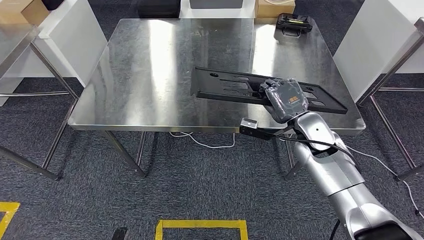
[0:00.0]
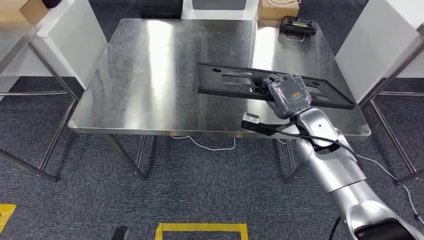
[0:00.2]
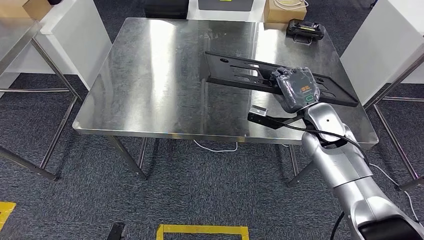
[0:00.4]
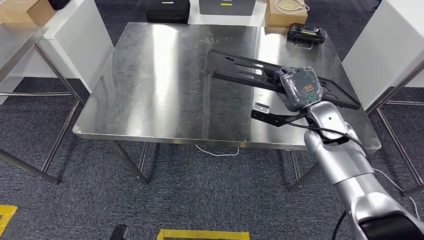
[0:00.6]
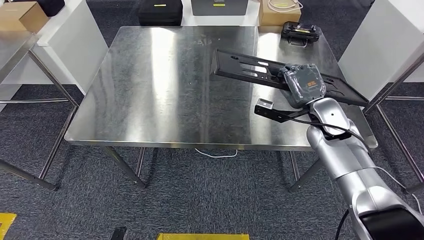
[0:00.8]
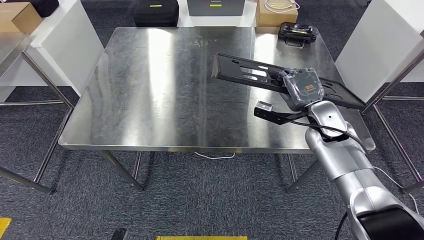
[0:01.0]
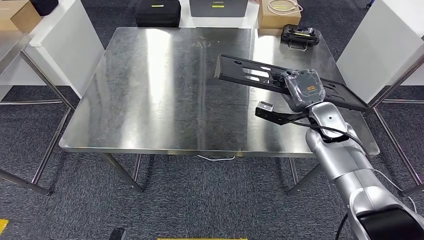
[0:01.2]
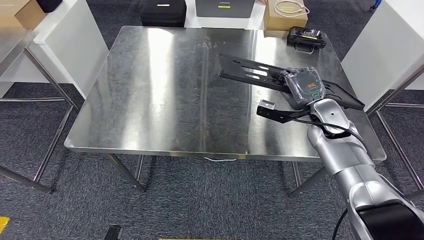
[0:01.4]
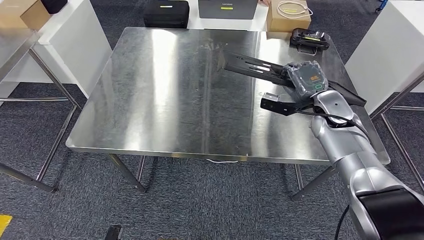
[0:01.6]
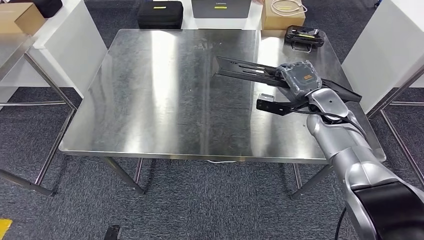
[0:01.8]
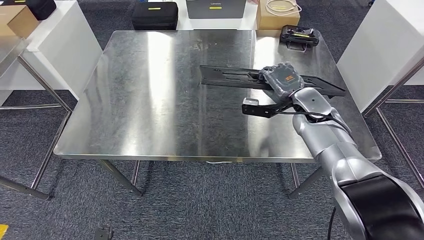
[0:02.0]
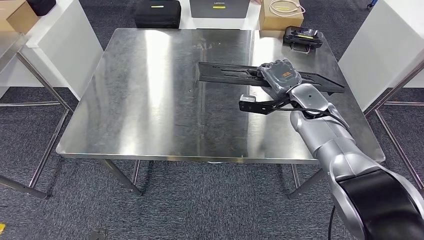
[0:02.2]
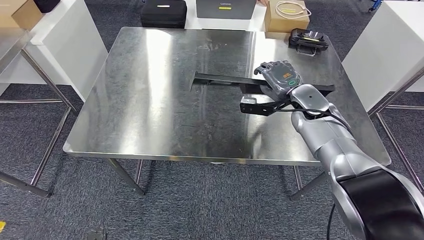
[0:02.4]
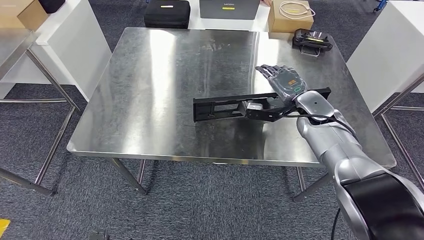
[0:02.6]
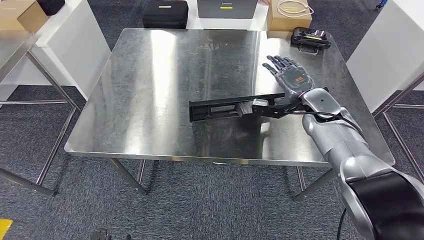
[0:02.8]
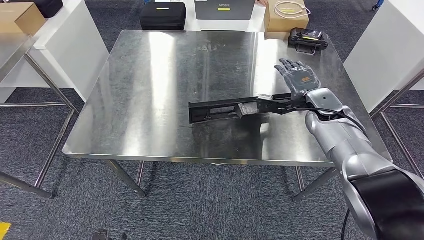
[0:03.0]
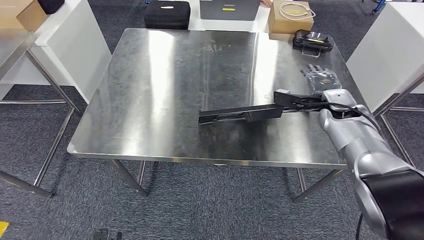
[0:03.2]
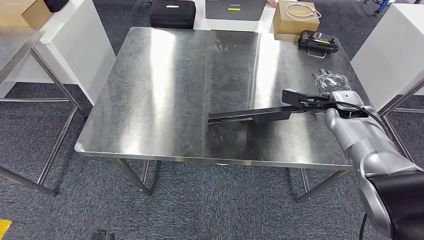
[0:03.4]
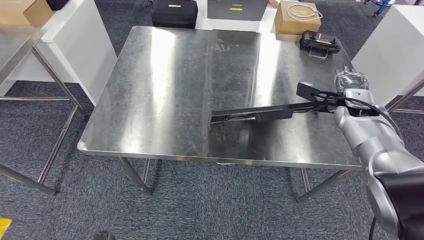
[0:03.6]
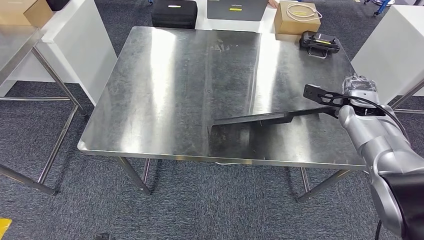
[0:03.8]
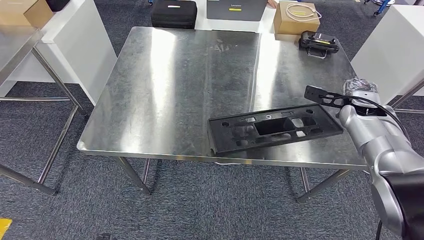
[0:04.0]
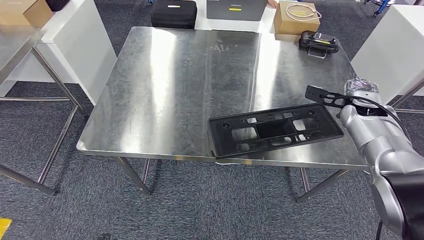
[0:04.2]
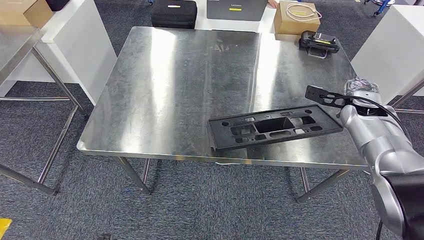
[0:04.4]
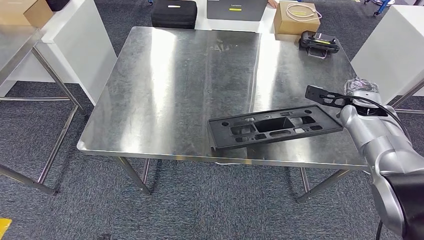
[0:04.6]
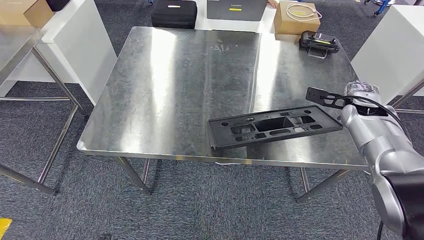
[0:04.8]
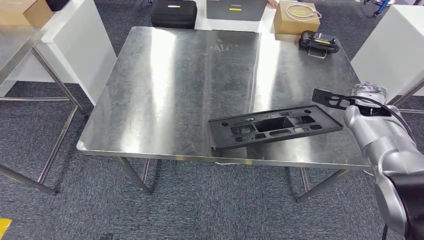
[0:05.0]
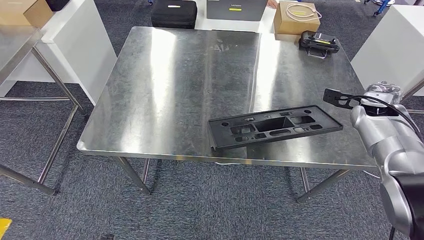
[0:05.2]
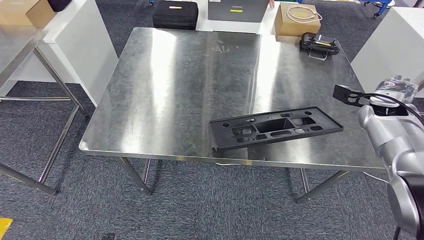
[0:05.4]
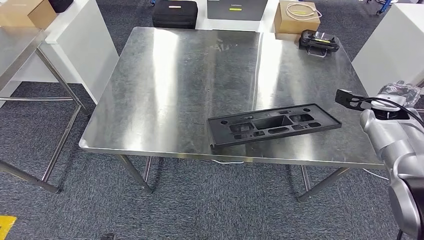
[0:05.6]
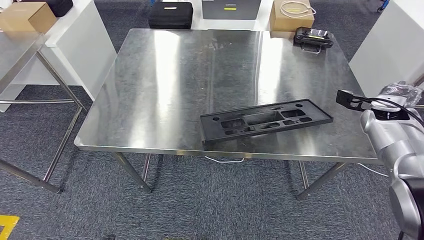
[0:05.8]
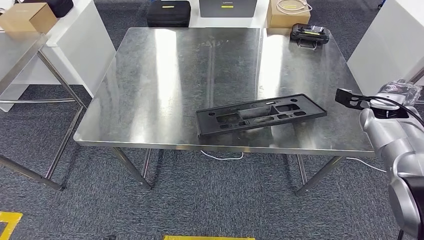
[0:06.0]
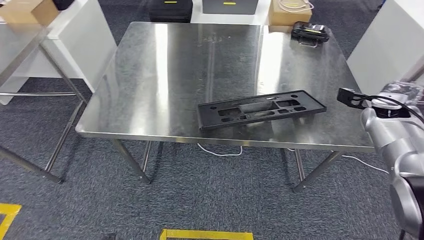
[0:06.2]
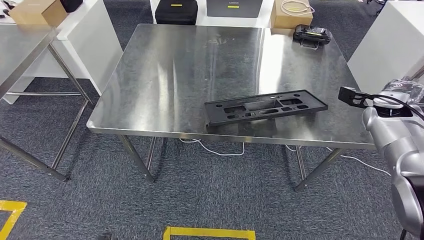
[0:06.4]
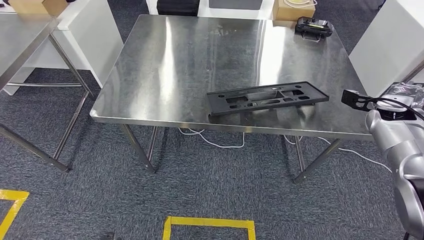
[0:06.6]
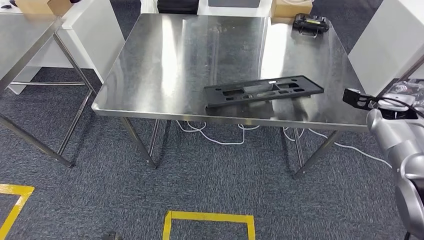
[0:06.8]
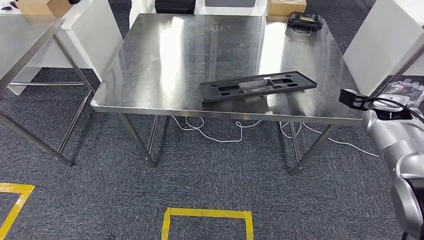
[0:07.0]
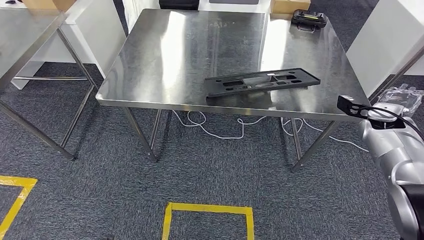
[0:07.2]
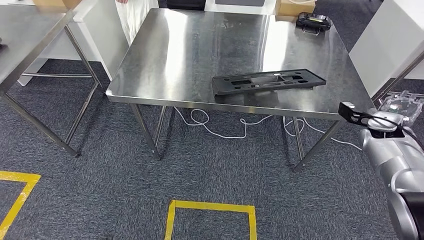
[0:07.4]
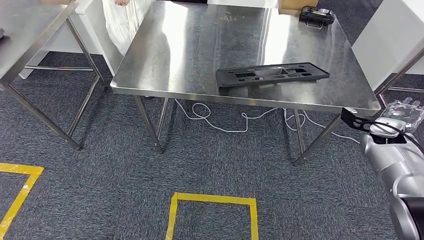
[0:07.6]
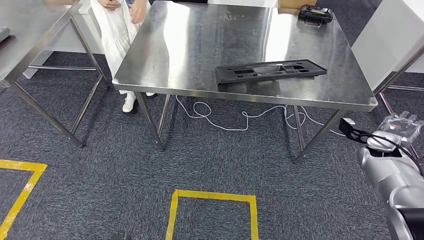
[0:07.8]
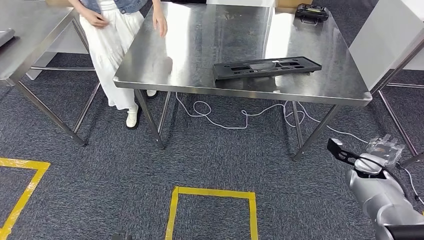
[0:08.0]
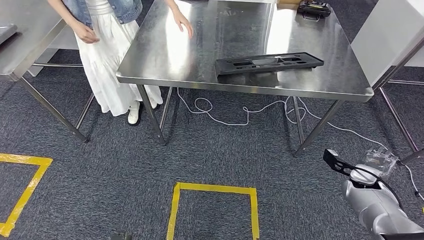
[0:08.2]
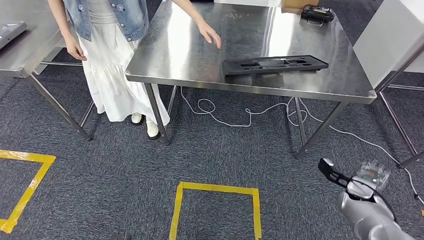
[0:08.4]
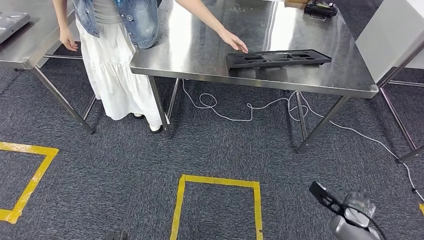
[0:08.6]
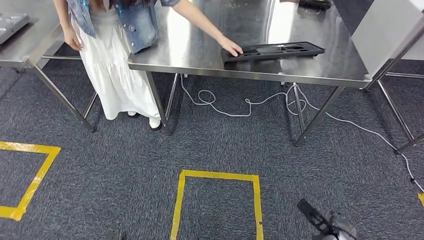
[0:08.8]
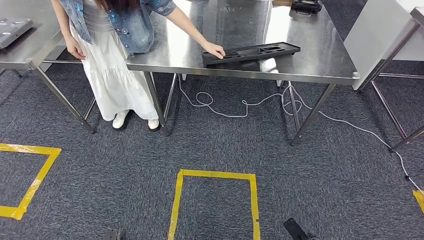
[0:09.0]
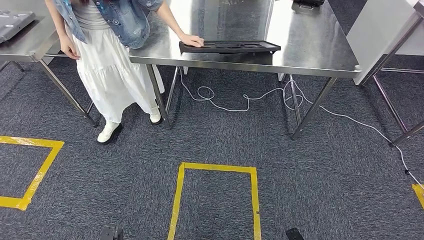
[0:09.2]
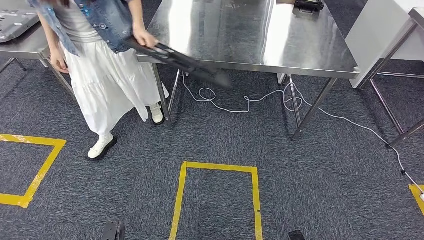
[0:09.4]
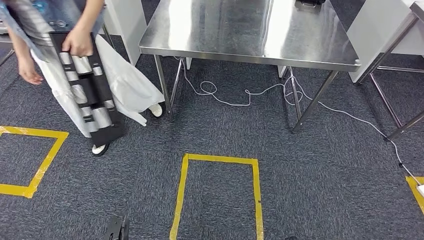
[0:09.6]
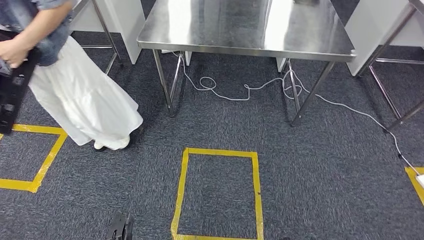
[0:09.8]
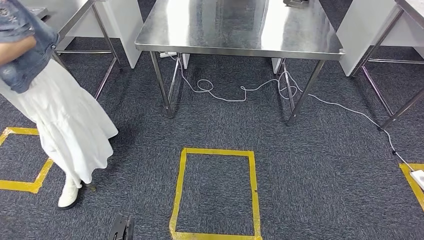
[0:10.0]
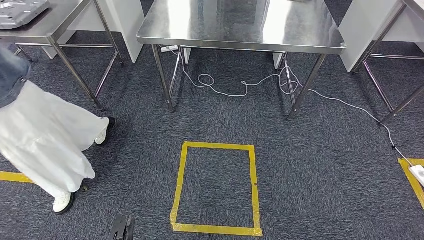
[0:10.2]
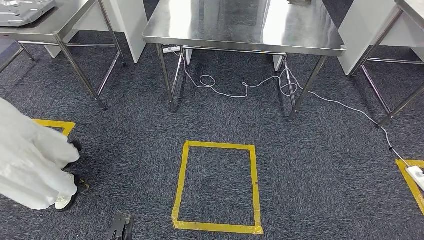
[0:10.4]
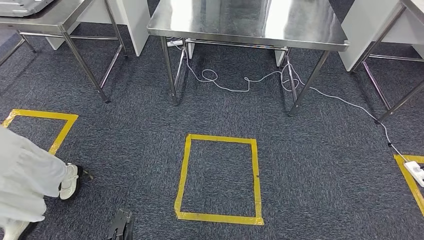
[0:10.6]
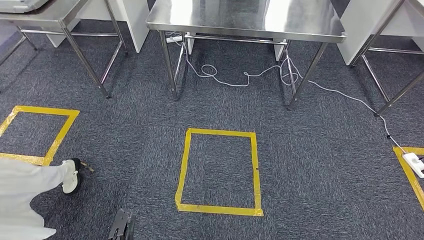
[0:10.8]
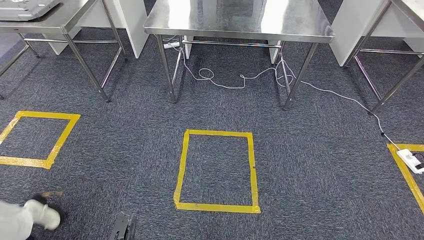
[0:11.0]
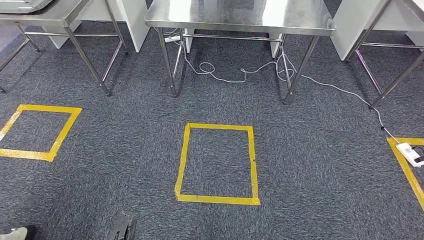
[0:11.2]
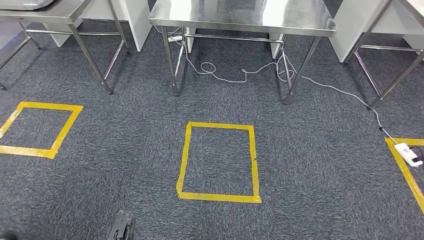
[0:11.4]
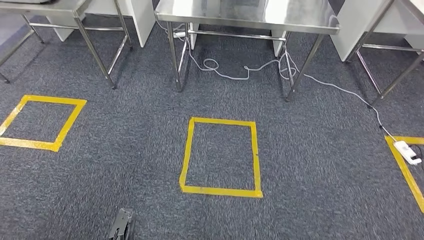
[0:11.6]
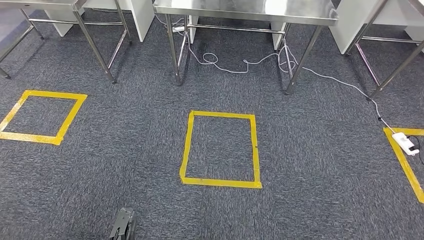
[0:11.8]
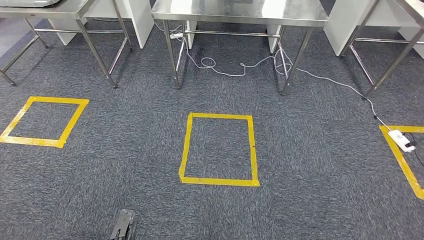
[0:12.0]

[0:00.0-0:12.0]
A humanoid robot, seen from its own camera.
Step, 0:00.0 to 0:05.2: Insert the large material into the corresponding hole on the workbench.

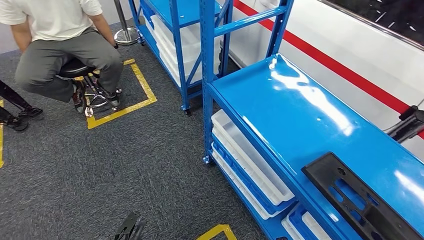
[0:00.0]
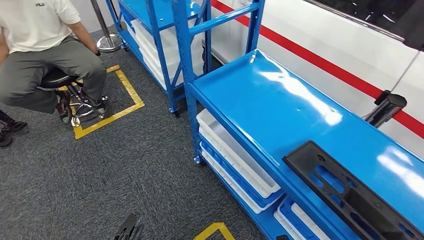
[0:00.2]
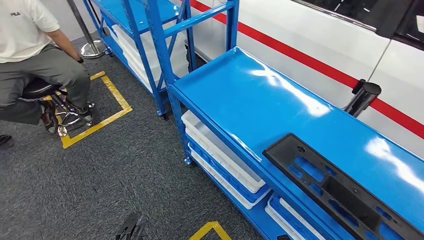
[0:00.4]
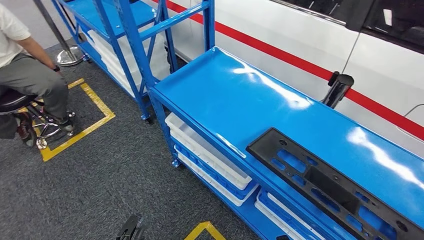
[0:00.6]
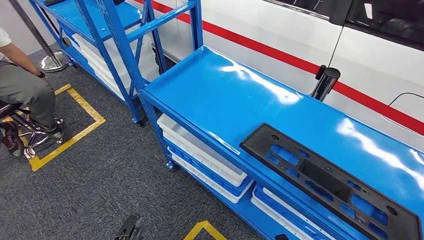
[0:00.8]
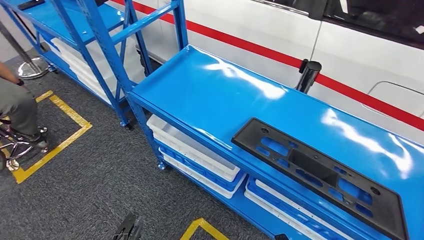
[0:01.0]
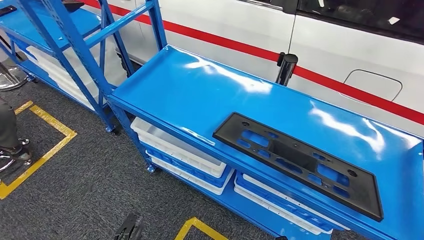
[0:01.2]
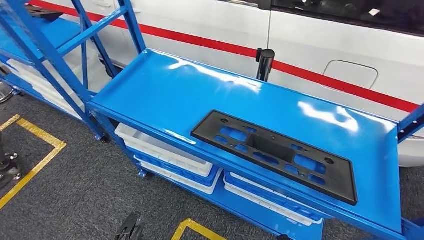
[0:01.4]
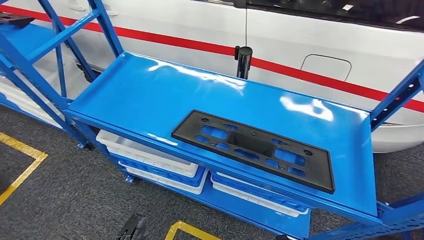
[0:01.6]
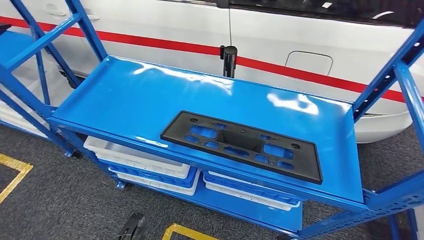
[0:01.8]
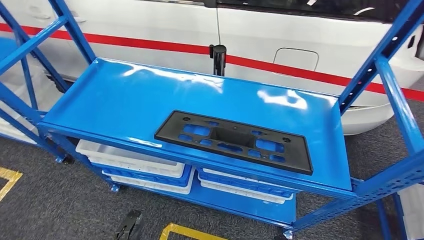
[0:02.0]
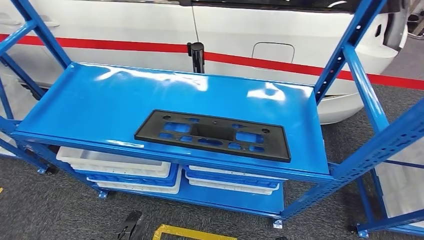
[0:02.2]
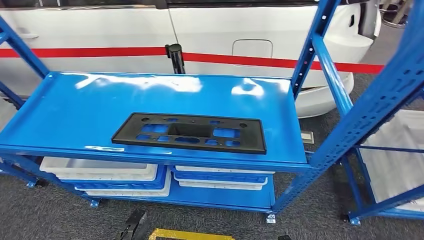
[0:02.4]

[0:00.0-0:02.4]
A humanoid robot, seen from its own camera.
Step, 0:00.0 to 0:02.2: Move to the initial position of the shelf.
